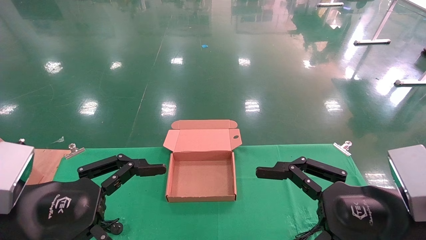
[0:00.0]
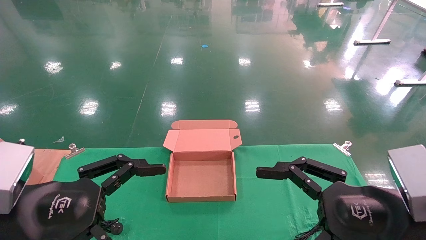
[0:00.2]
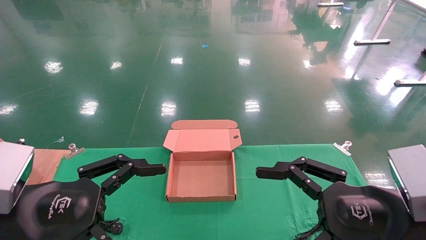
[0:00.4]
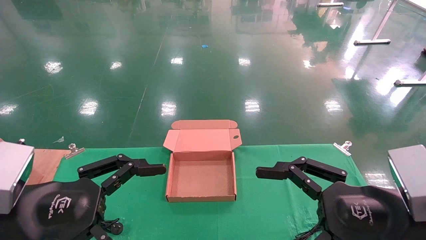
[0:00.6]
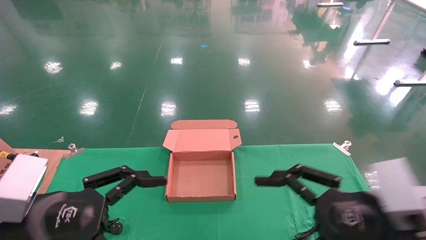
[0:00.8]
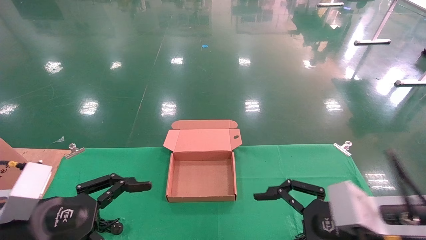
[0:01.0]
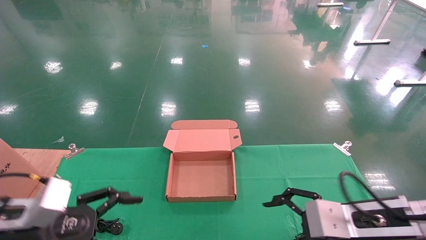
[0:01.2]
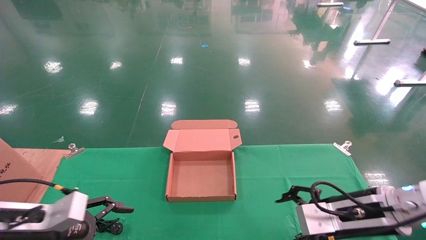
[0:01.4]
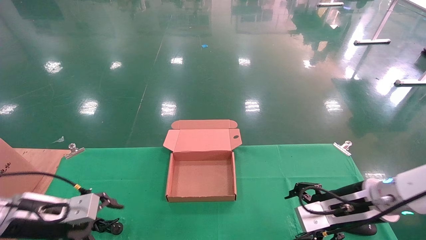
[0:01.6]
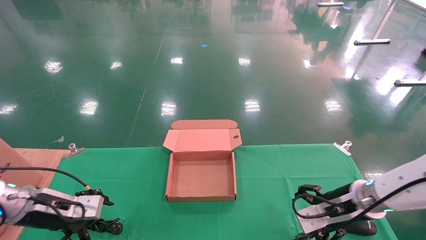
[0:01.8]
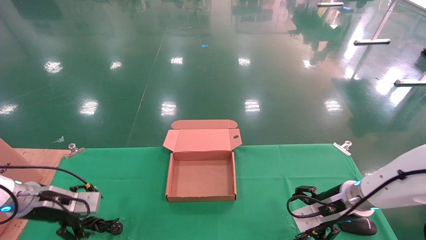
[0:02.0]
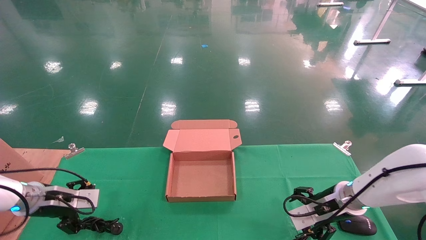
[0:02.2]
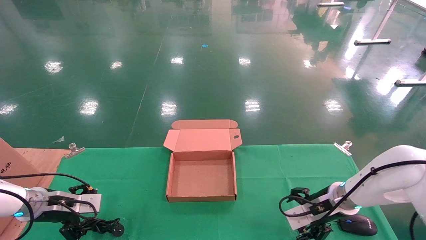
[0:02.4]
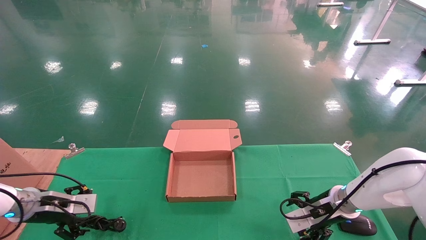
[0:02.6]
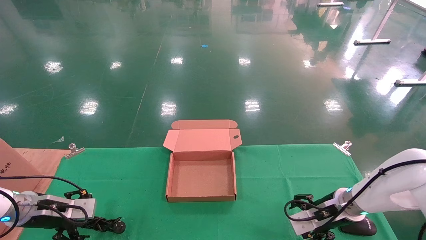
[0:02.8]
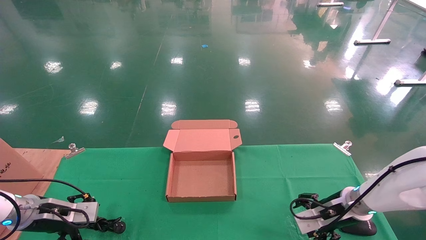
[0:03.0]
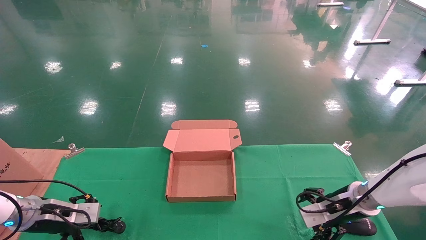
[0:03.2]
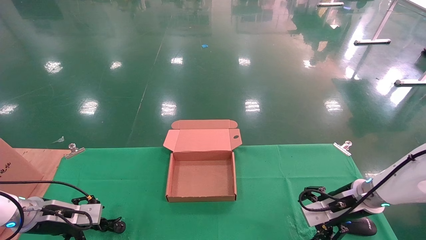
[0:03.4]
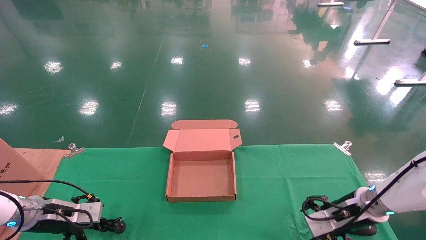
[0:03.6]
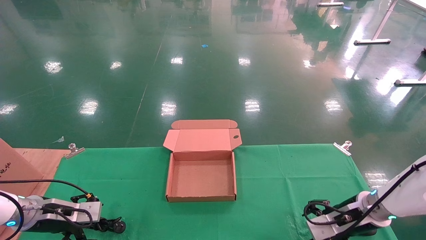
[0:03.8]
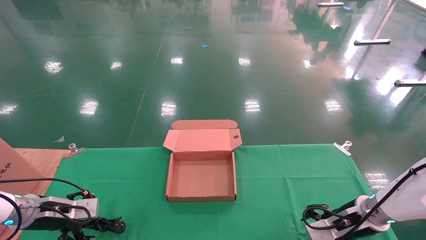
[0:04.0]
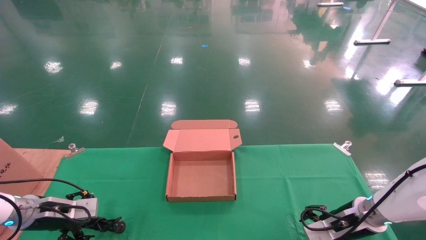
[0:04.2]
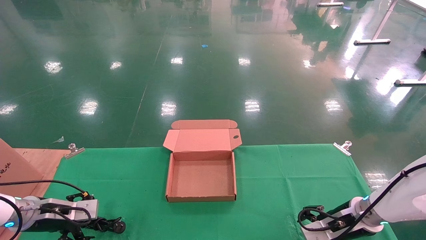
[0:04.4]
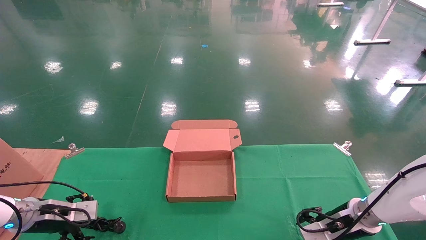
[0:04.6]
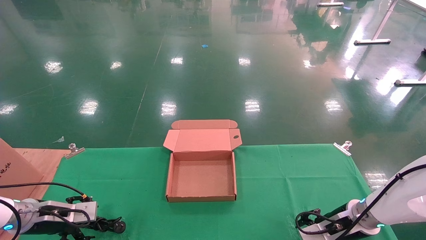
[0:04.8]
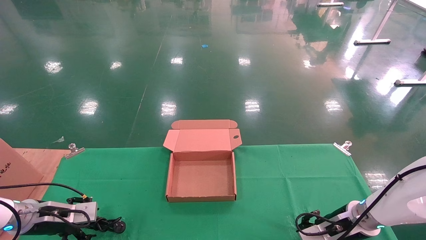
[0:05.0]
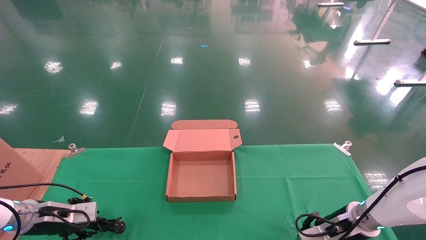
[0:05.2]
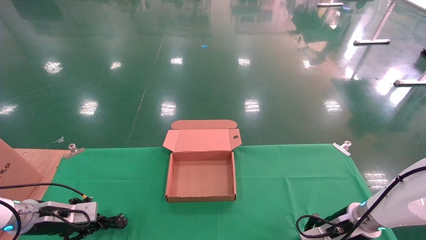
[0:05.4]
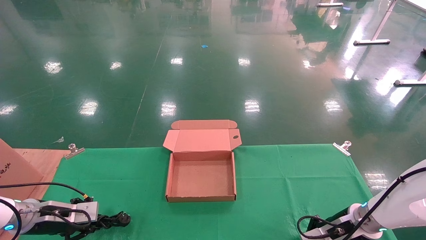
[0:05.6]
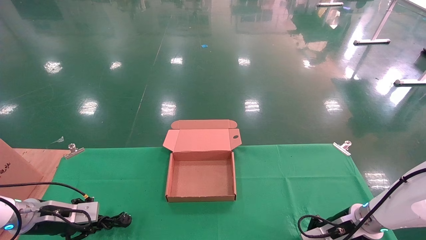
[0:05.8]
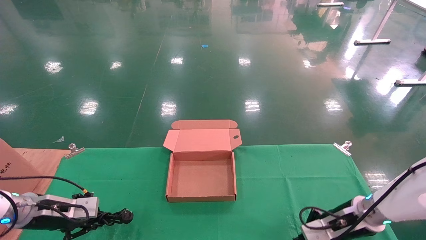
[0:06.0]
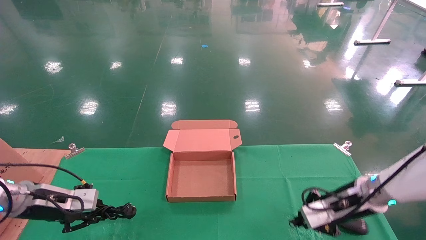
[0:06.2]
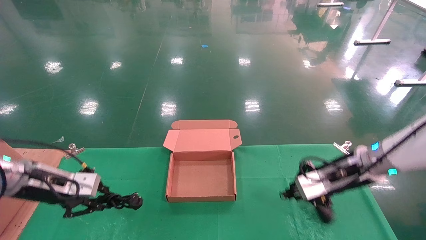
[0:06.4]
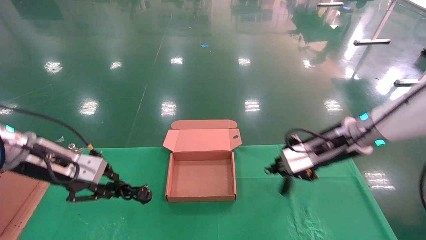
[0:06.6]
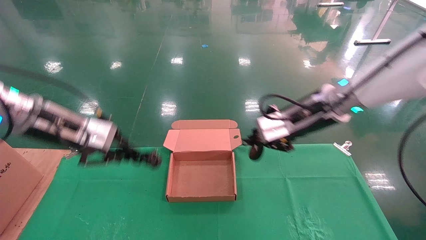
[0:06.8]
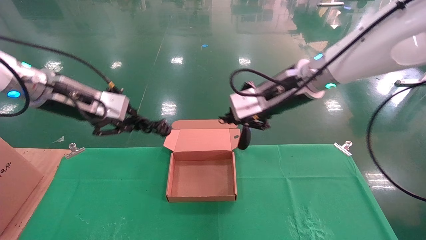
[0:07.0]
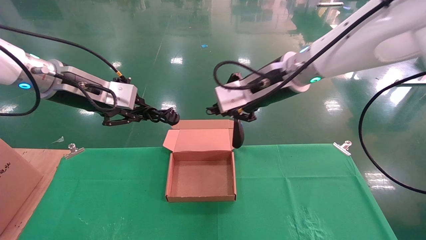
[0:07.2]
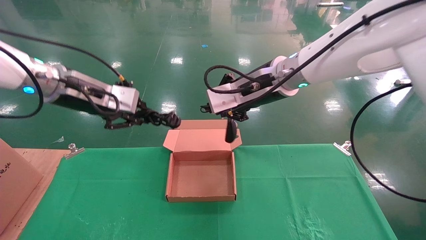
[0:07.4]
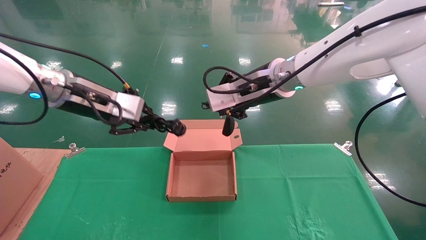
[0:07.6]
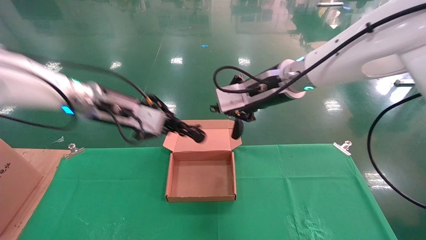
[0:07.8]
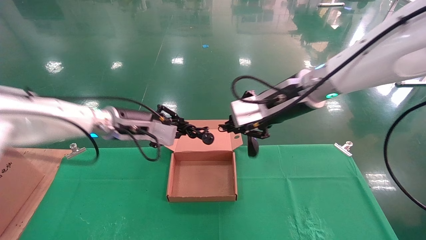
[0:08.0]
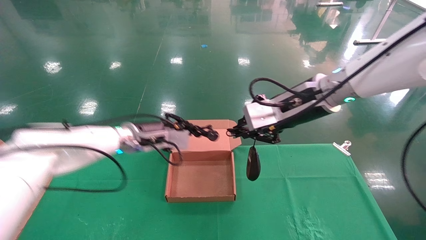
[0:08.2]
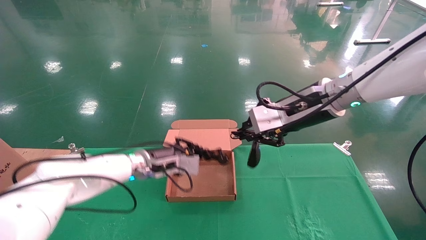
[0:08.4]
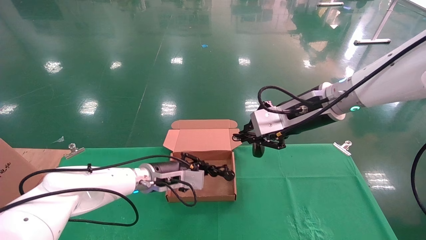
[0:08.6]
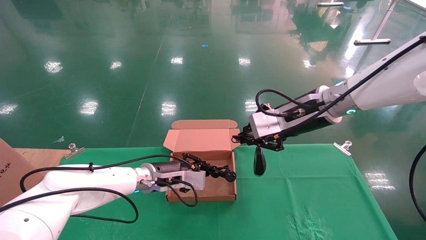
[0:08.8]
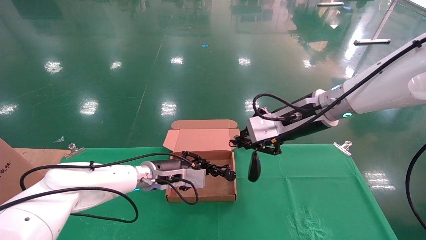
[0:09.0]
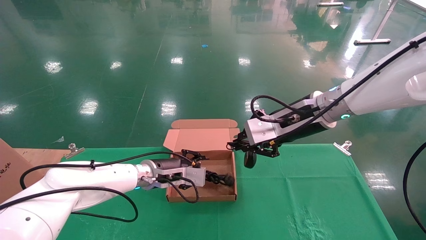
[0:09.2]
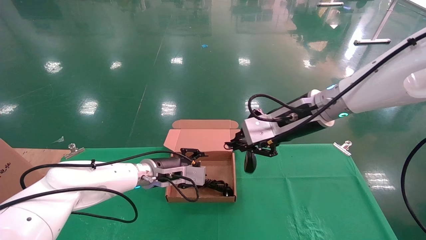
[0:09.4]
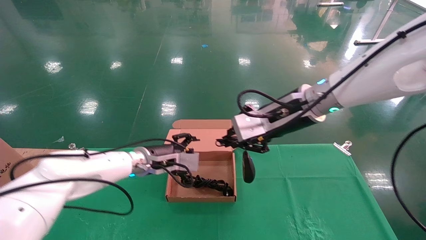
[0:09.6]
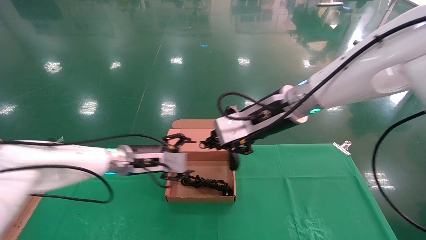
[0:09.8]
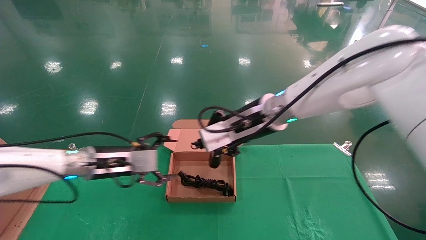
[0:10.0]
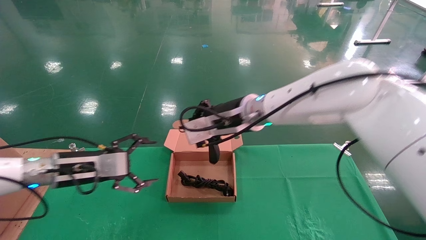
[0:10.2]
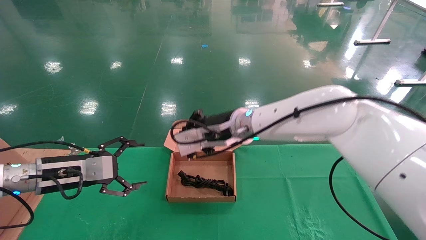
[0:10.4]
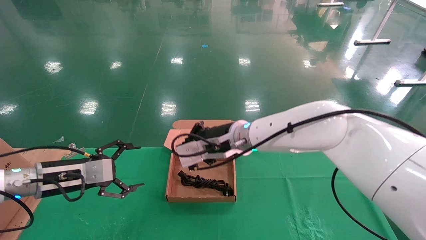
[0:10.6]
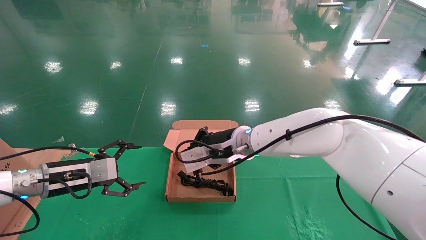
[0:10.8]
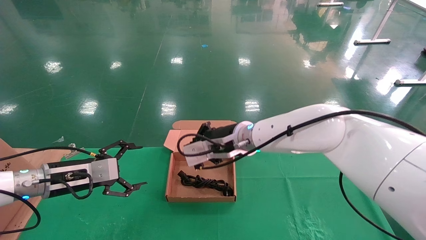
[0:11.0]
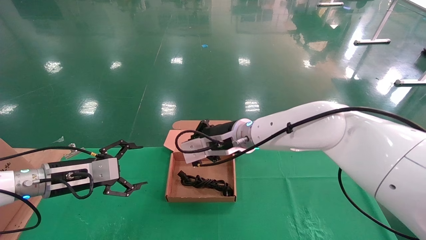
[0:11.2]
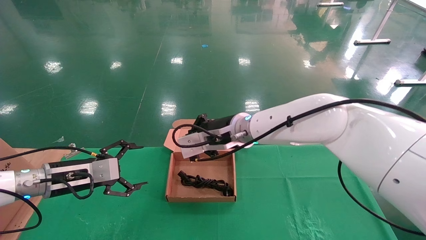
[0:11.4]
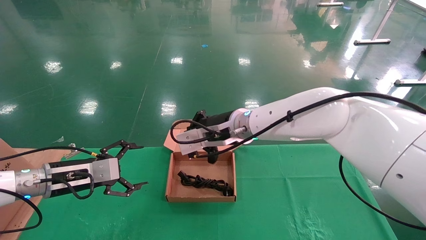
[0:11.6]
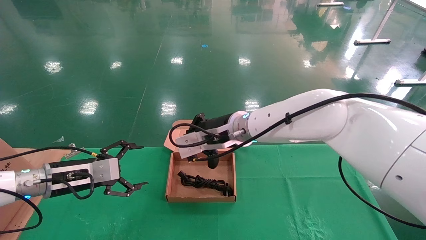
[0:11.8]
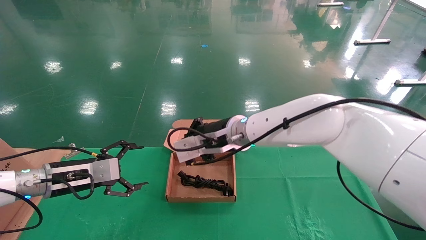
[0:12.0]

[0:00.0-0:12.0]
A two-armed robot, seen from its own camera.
Step, 0:01.4 to 0:06.2: Grab and lift both the mouse and power cord from the accessory packaging area at the same time.
0:00.0 to 0:01.6: The left gripper travels forward, downward and to the left by approximately 20 cm. Meanwhile the right gripper is displaced forward and downward by approximately 15 cm.
0:01.6 to 0:03.0: The left gripper moves forward and to the left, approximately 10 cm; the right gripper goes approximately 10 cm forward and downward.
0:03.0 to 0:04.4: The grippers stay close to where they were, moving slightly.
0:04.4 to 0:06.0: The left gripper closes. The right gripper closes.
0:06.0 to 0:07.6: The left gripper moves upward and to the right, roughly 30 cm; the right gripper travels upward and to the left by approximately 35 cm.
0:07.6 to 0:09.0: The right gripper goes about 5 cm to the right; the left gripper shifts roughly 25 cm downward and to the right.
0:09.0 to 0:10.4: The right gripper heads to the left, covering about 15 cm. Meanwhile the left gripper goes some 20 cm to the left and backward, and opens its fingers.
0:10.4 to 0:12.0: The grippers stay close to where they were, moving slightly.

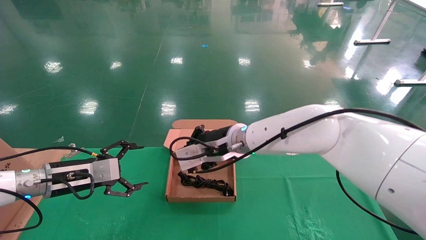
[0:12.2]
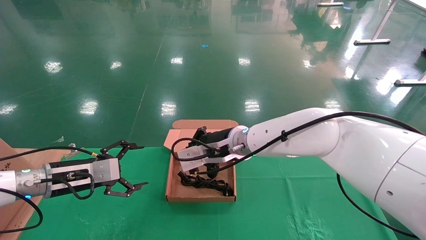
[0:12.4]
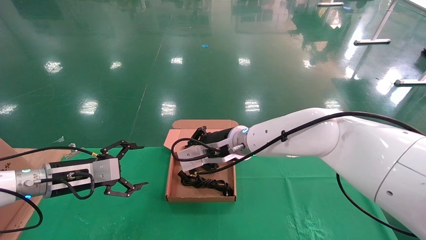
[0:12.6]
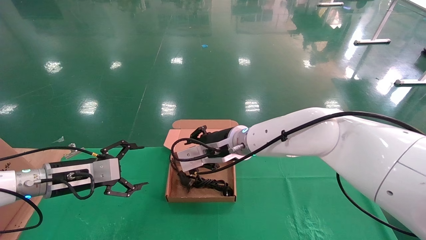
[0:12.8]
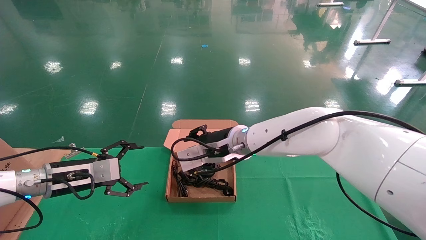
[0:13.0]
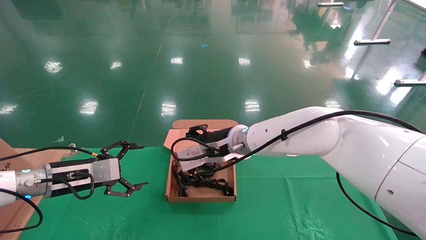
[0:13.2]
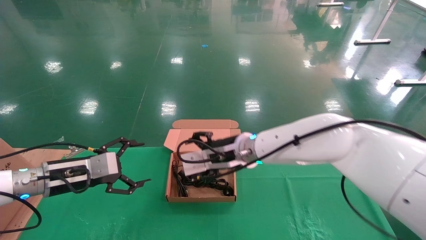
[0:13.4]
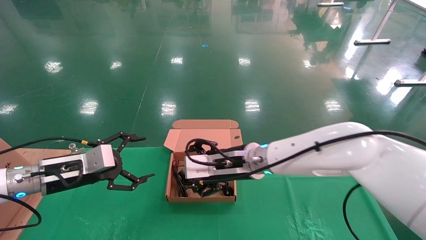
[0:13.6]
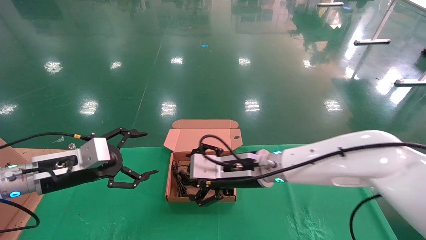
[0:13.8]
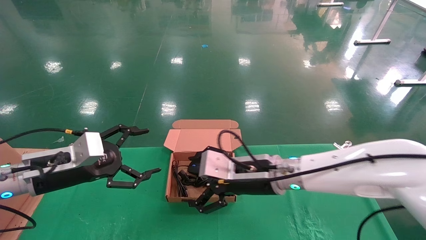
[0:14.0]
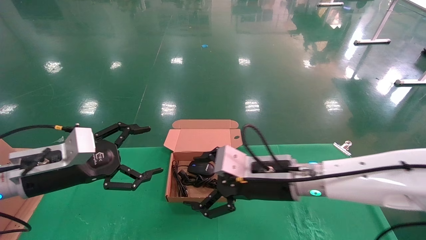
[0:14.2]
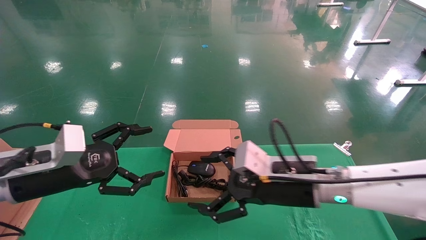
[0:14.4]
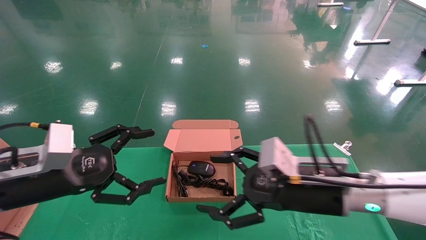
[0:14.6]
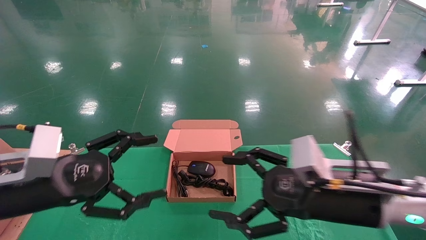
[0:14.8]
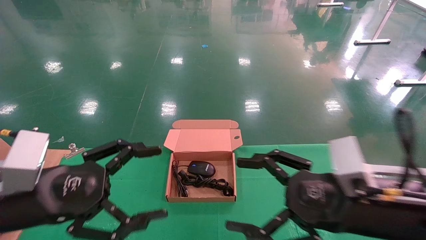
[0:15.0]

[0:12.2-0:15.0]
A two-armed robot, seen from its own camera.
0:12.2 to 0:13.6: The right gripper moves about 5 cm, and opens up.
0:13.6 to 0:15.0: The right gripper moves to the right and backward, approximately 25 cm; the left gripper heads backward, covering roughly 15 cm.
